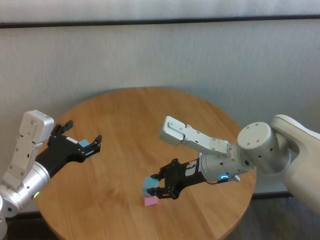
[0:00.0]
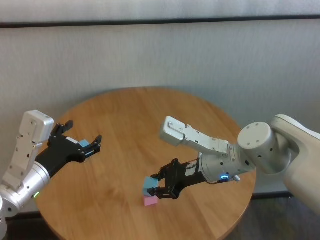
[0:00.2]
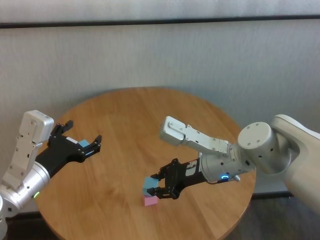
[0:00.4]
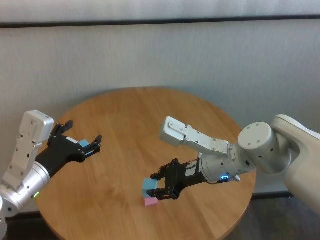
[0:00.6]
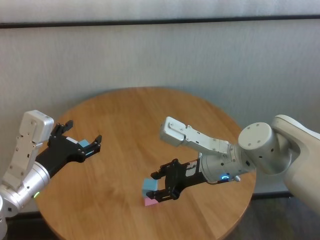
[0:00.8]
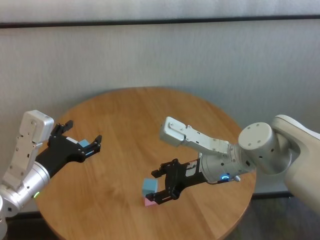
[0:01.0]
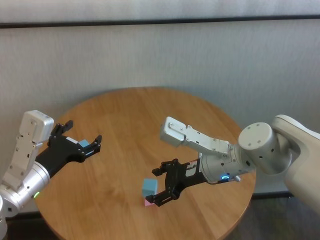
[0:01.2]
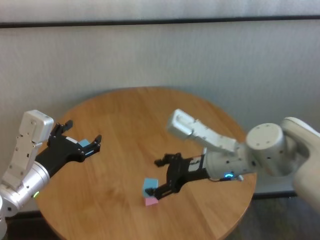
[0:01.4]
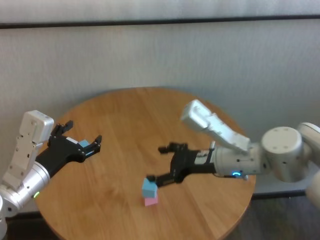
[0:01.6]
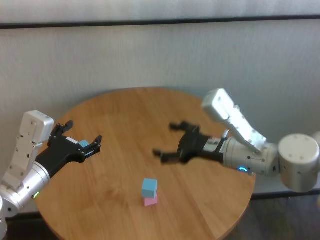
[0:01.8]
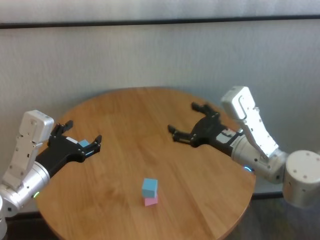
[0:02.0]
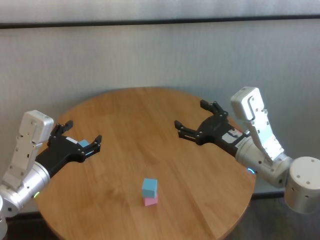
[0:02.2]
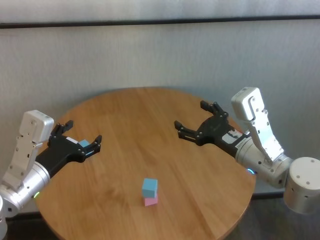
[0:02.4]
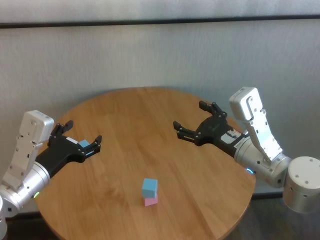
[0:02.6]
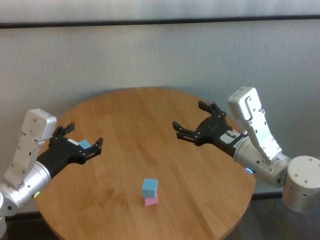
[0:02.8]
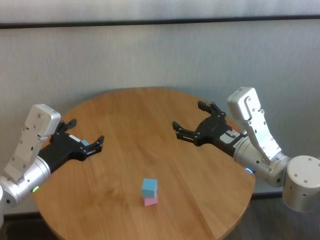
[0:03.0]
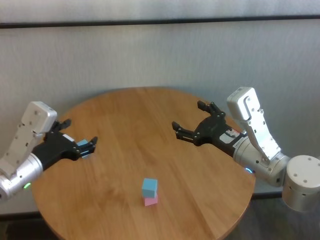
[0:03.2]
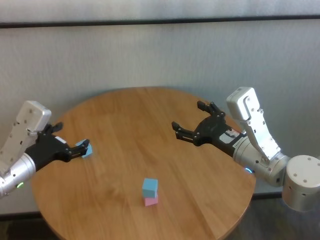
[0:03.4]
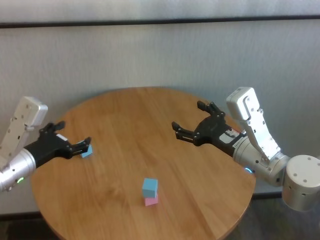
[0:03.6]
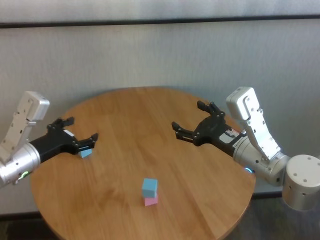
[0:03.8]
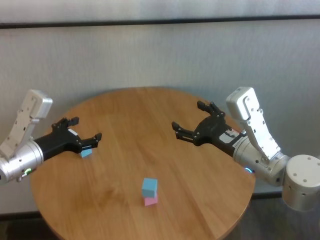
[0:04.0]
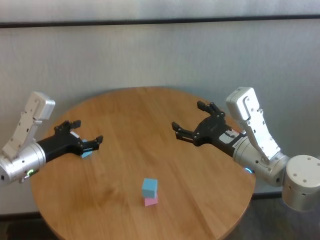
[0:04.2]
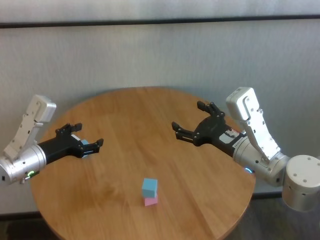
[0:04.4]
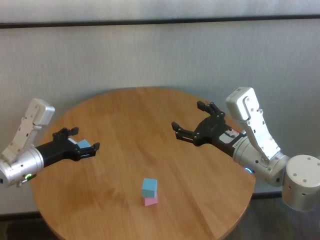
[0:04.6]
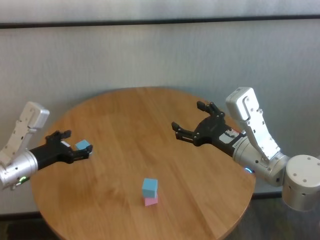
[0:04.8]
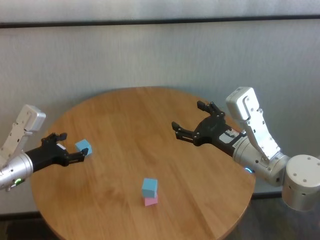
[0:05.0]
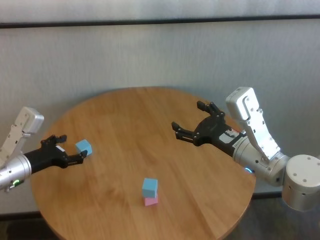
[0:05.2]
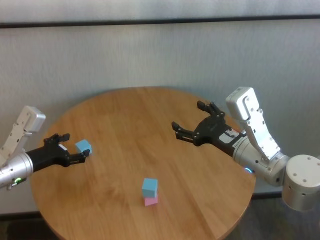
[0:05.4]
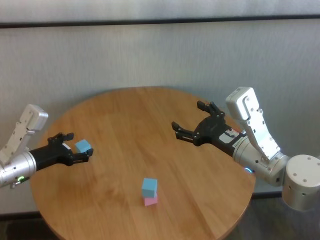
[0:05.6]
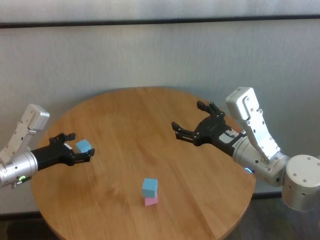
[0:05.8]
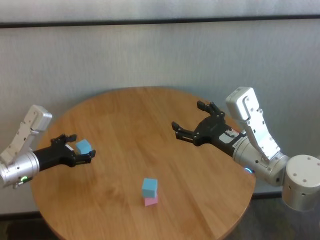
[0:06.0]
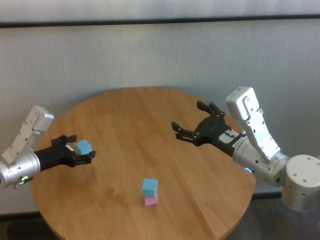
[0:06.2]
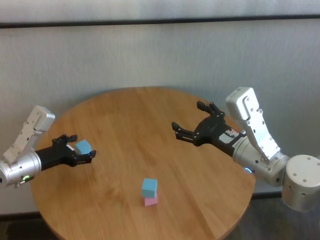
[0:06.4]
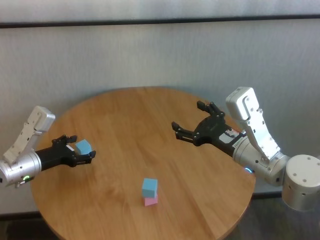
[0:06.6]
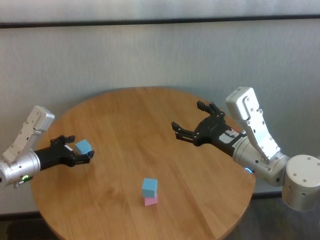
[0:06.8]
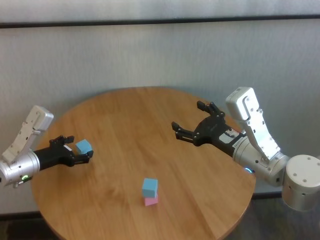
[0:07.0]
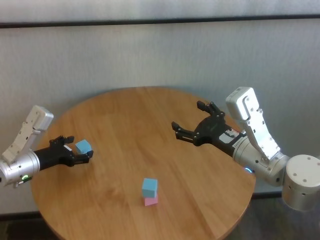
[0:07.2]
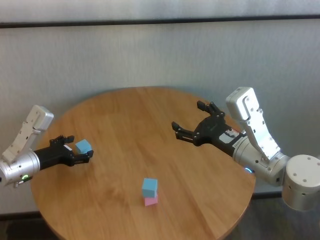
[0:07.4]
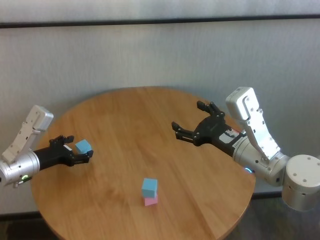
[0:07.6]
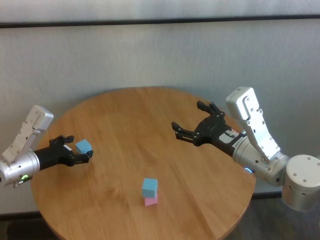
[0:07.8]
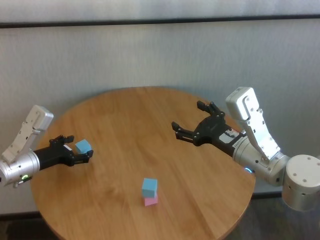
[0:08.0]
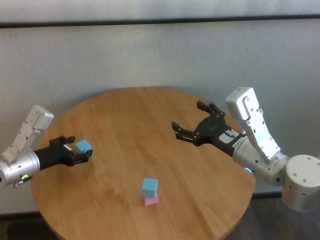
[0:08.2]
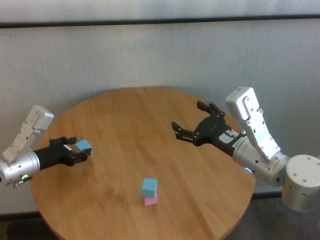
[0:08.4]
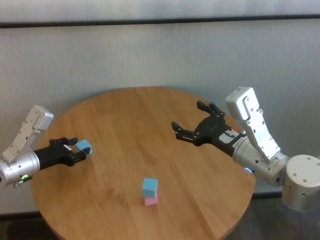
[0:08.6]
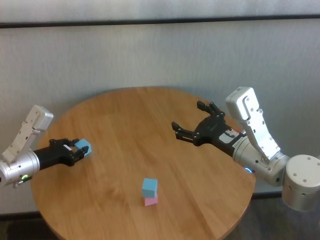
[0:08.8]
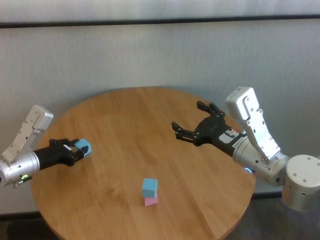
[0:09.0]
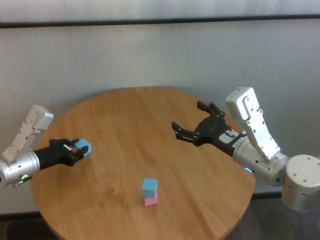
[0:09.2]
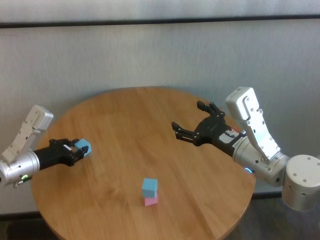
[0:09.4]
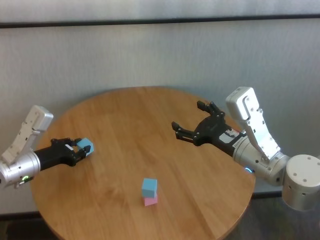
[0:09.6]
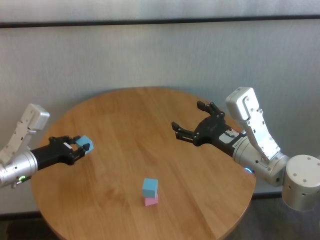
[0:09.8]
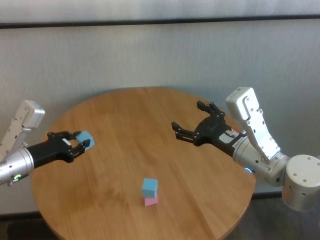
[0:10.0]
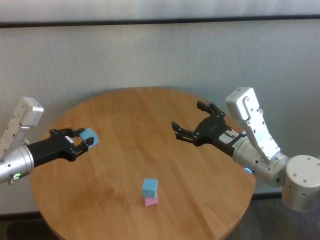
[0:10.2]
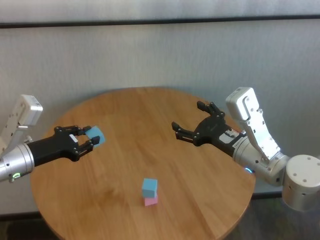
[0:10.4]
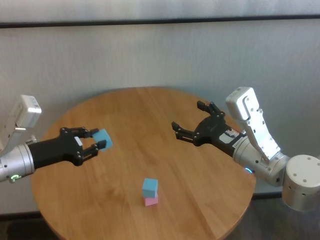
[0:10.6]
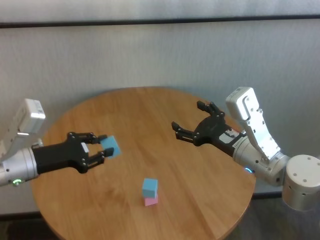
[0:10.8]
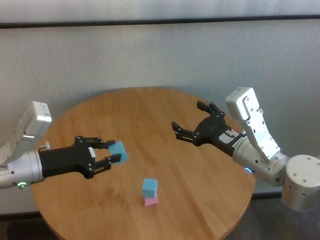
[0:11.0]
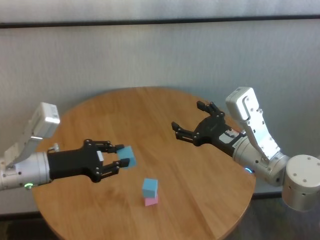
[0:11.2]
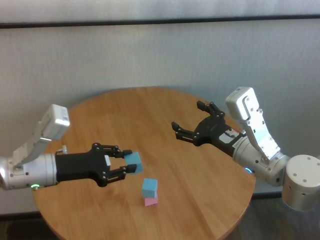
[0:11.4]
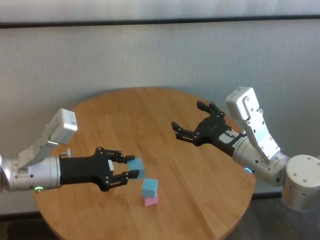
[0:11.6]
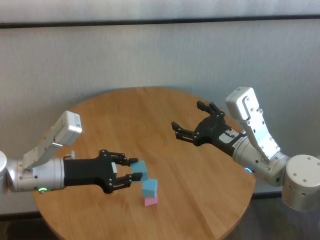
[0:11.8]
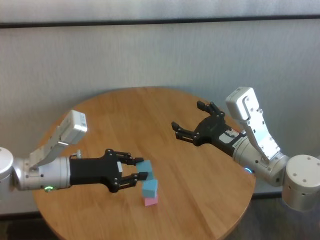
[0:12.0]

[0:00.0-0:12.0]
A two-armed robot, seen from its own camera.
Task of the whole recording: stack building blocks on the table.
Step, 0:00.8 to 0:08.8: Grasp the blue building block with left gripper.

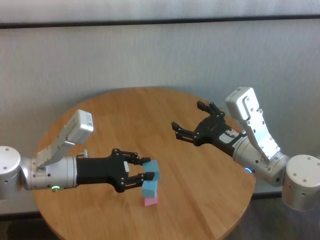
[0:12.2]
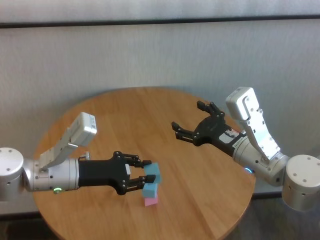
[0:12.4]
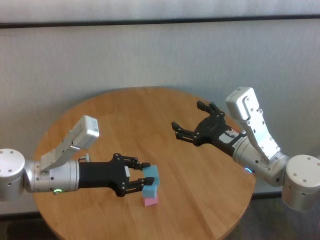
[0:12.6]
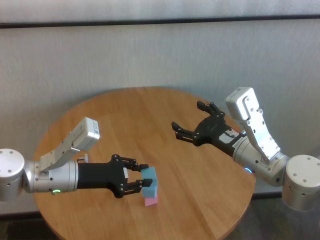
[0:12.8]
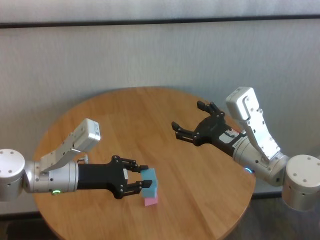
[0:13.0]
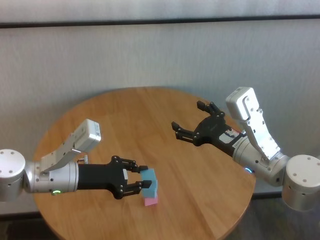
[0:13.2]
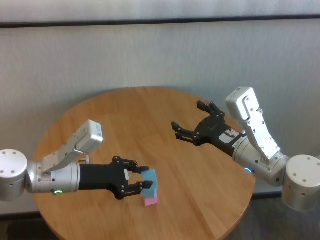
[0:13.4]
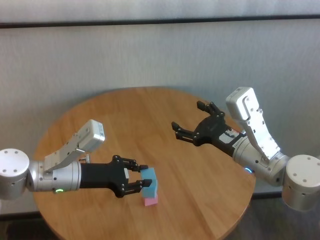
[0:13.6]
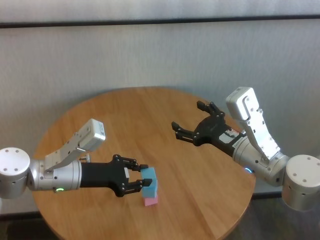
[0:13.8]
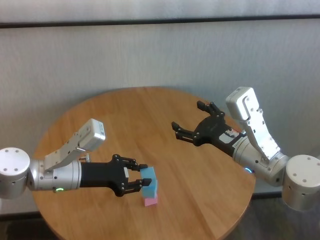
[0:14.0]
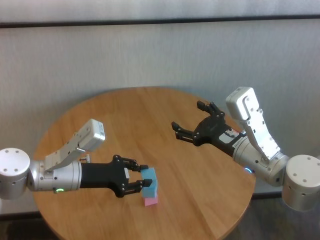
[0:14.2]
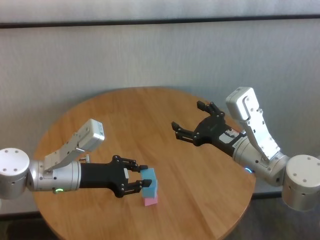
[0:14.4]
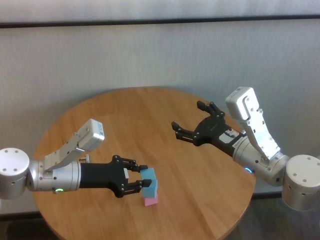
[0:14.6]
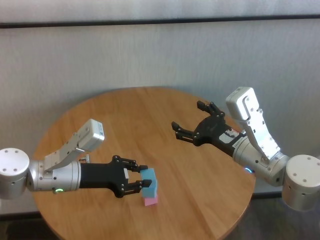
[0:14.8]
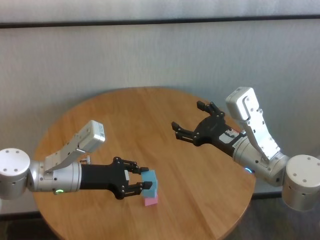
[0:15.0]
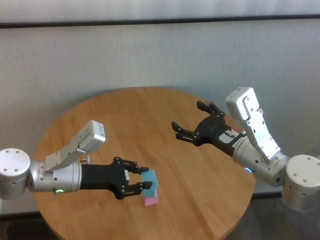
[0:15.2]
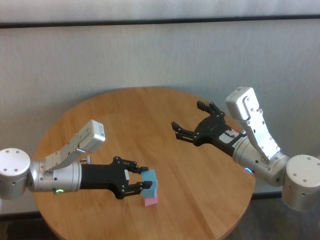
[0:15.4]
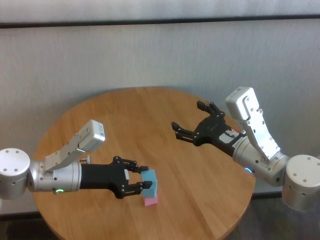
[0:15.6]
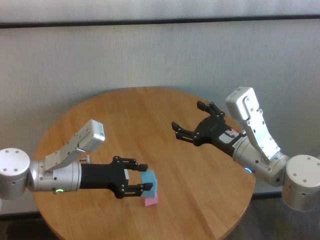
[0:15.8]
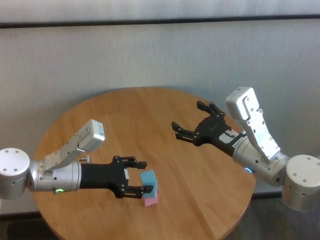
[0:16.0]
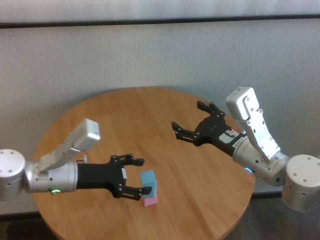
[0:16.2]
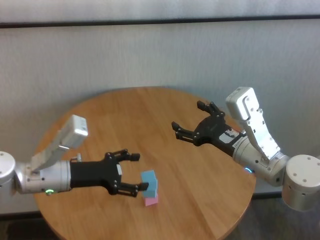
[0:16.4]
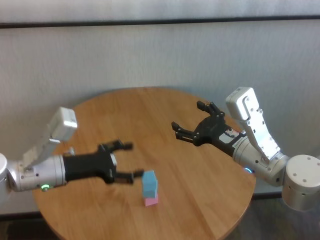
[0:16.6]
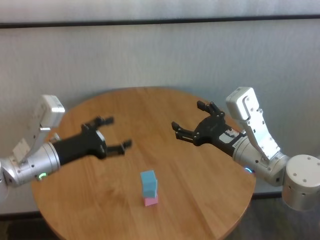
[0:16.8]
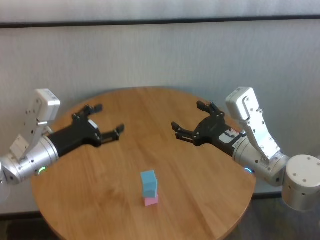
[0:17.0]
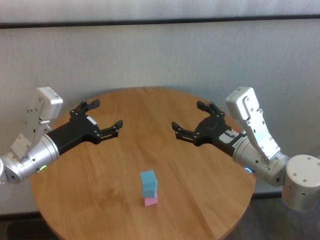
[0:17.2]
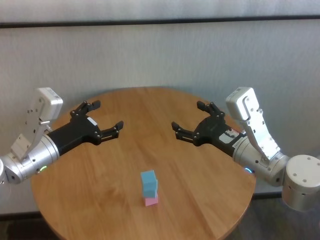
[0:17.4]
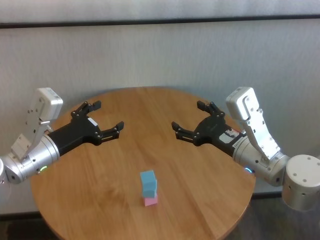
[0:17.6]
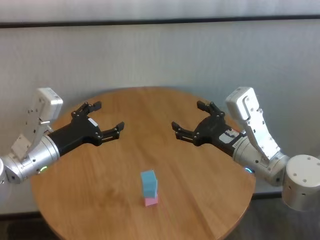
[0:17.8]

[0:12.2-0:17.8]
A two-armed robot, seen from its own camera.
Task of the whole recording: stack building blocks on the table.
Step, 0:12.2 to 0:15.8: Place the blue building block on the blue building blocks with left gripper.
